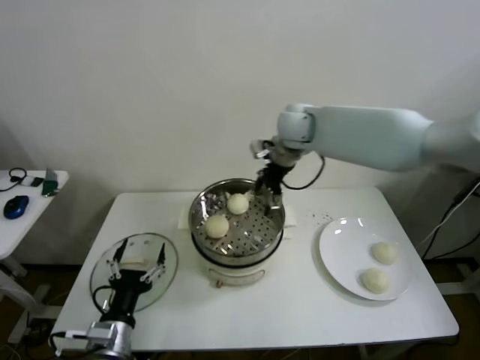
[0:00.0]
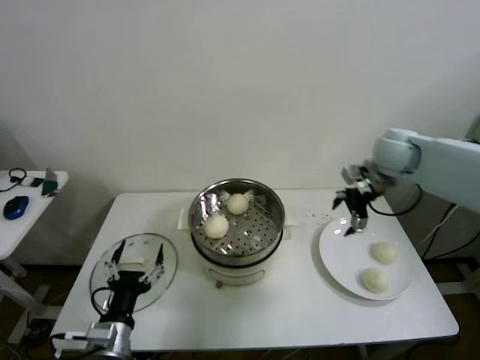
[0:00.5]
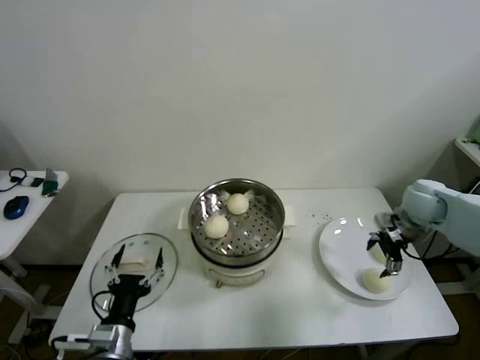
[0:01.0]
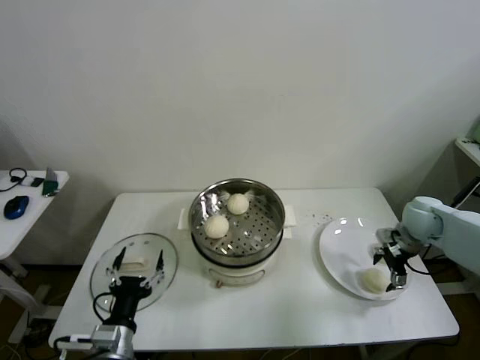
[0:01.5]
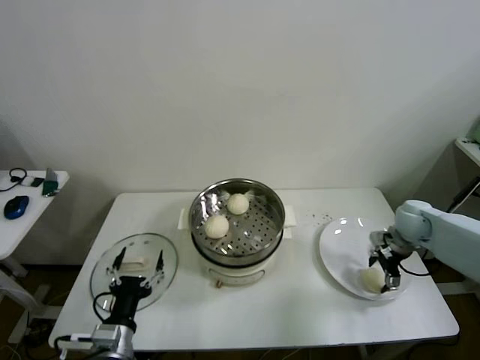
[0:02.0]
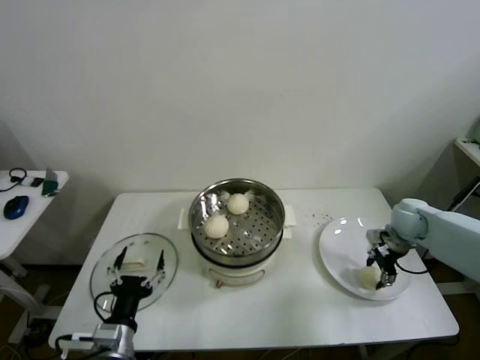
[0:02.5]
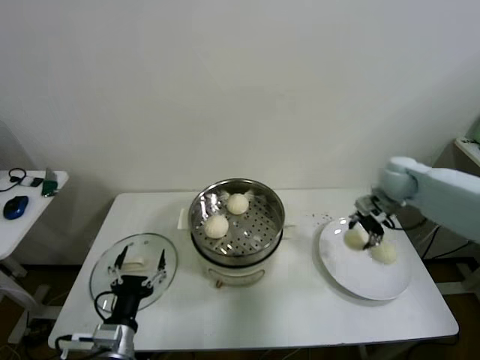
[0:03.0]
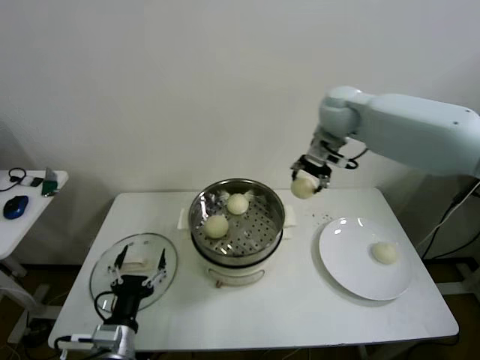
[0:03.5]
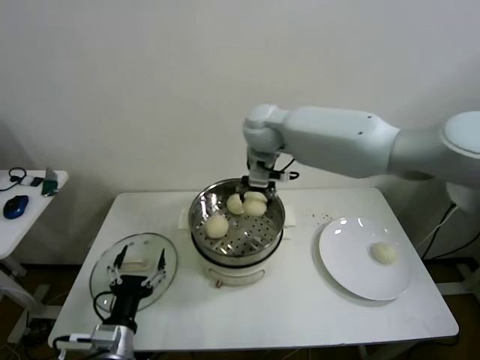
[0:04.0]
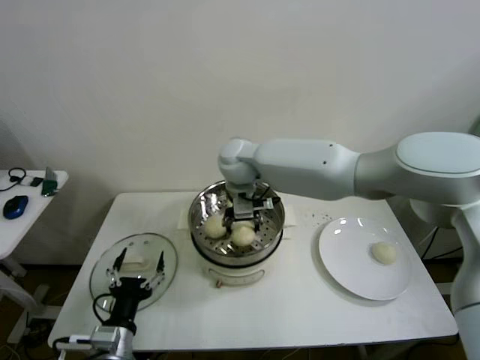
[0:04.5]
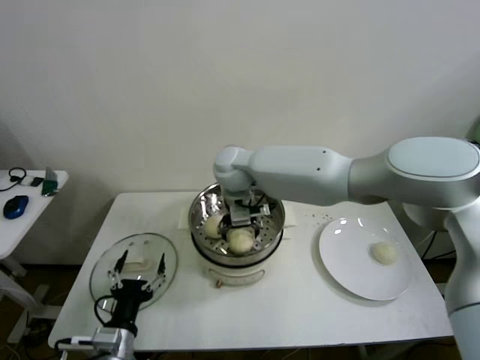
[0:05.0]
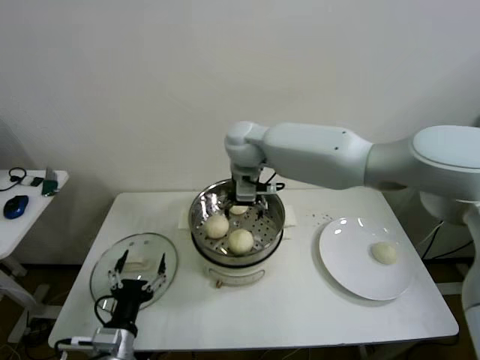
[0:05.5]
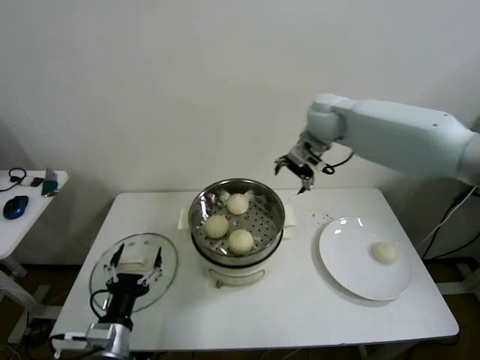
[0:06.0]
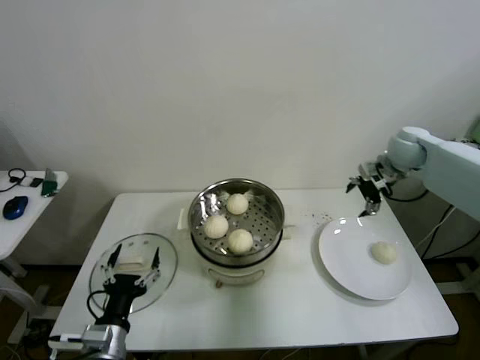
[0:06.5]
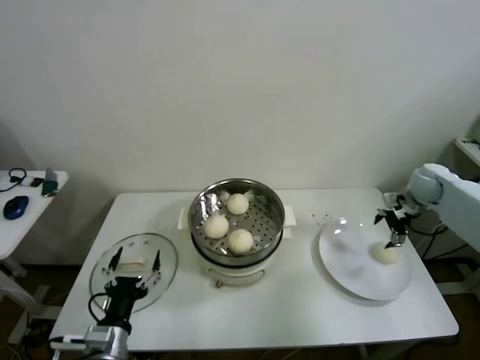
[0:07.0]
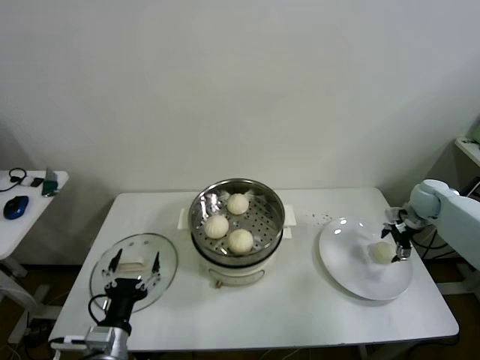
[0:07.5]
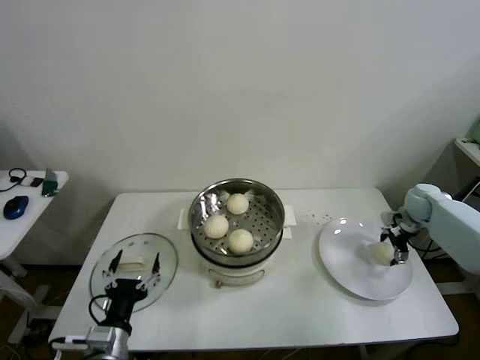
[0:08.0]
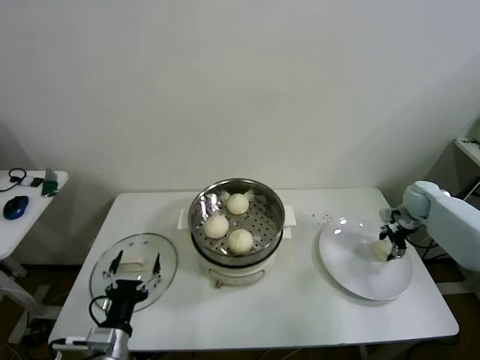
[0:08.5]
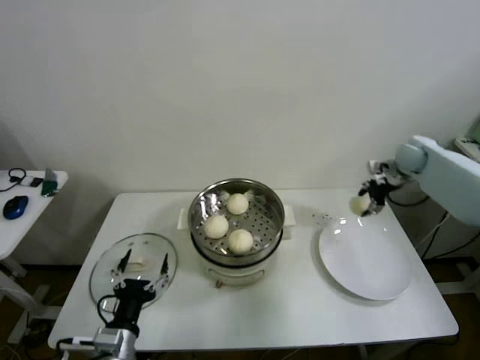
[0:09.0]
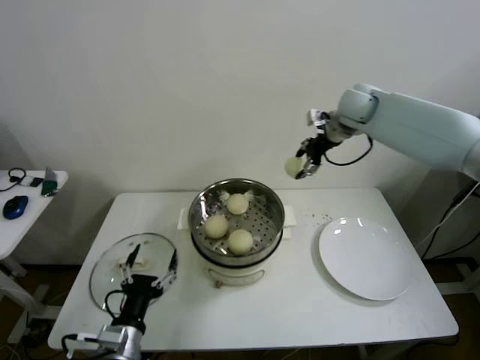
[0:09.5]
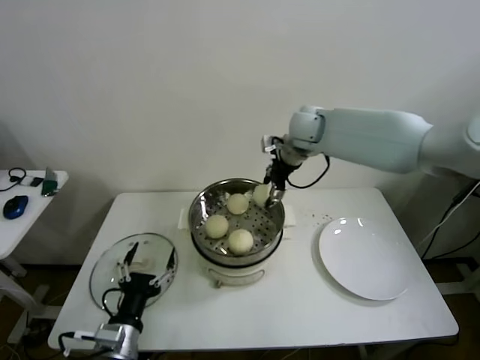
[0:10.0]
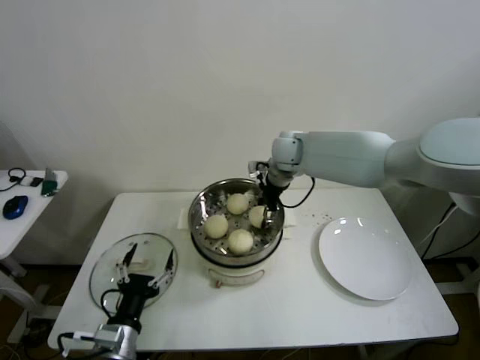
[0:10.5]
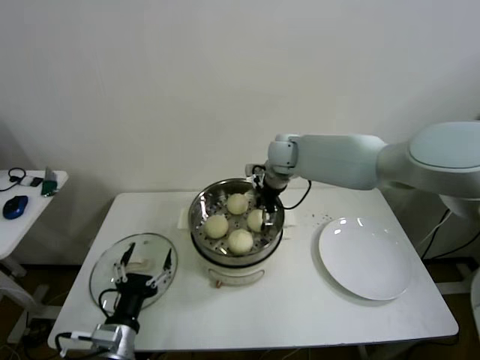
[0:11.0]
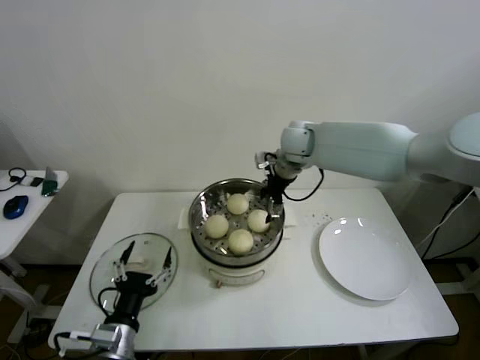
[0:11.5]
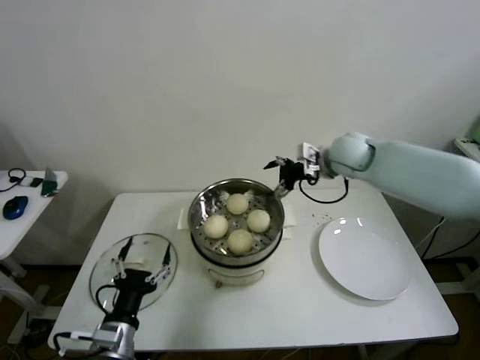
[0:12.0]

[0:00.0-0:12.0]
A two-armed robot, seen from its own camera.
Step, 0:00.0 to 0:02.0: Grasp the baozi in the plate with right gripper.
Step, 0:02.5 to 0:04.5: Place the baozi on the steamer with right gripper.
Step, 0:05.0 to 0:08.0: Grasp the baozi in the plate with right gripper.
Step, 0:08.5 to 0:10.5: Place the baozi on the steamer with right gripper.
0:00.0 to 0:02.0: The right gripper is displaced to the right and downward by some 35 cm.
0:02.0 to 0:04.0: The right gripper is displaced to the left and upward by approximately 40 cm, and closes its fingers.
0:04.0 to 0:06.0: The right gripper is displaced to the right by some 15 cm, and opens.
0:06.0 to 0:08.0: The right gripper heads to the right and downward, covering some 40 cm.
0:08.0 to 0:10.0: The right gripper heads to the left and upward, covering roughly 40 cm, and closes.
0:10.0 to 0:12.0: The right gripper goes some 10 cm to the right, and opens up.

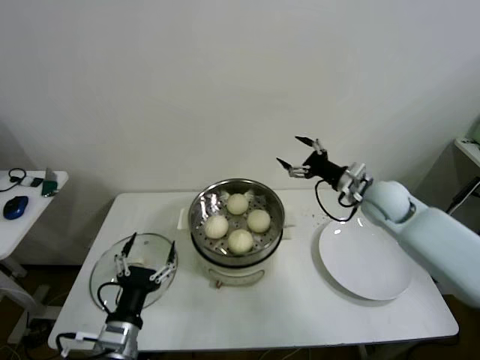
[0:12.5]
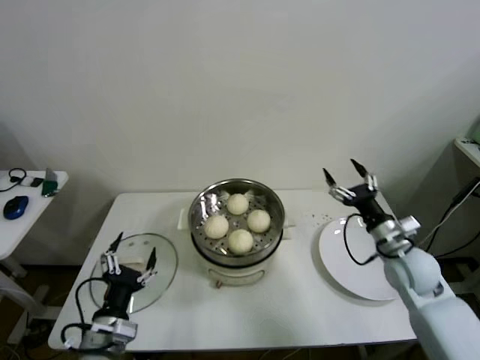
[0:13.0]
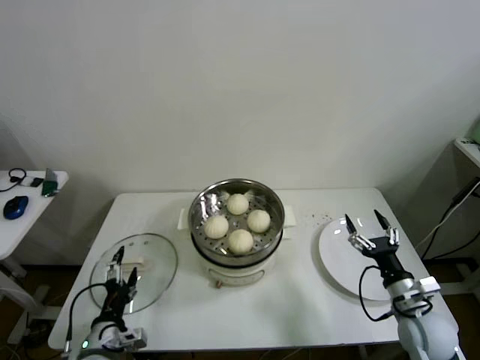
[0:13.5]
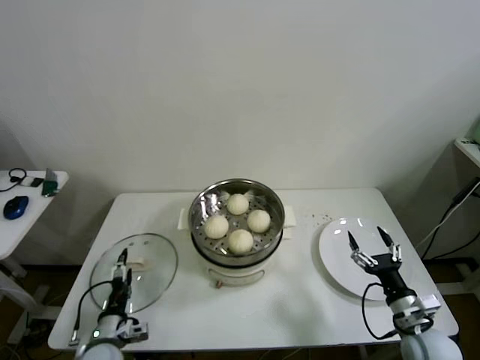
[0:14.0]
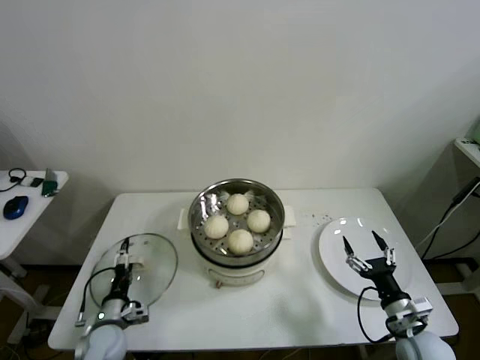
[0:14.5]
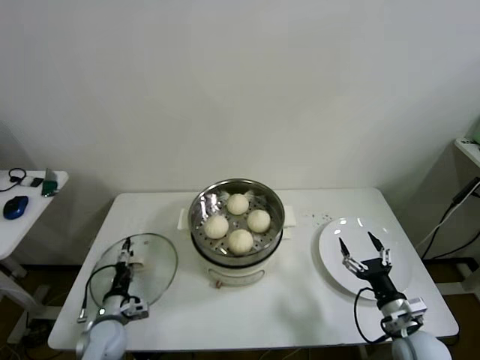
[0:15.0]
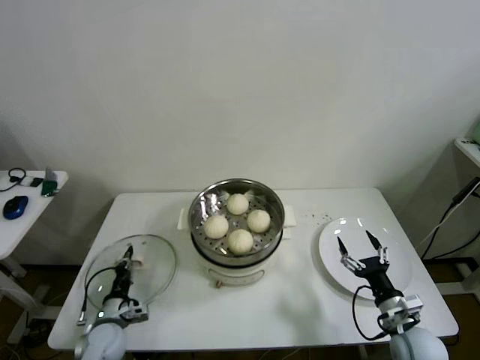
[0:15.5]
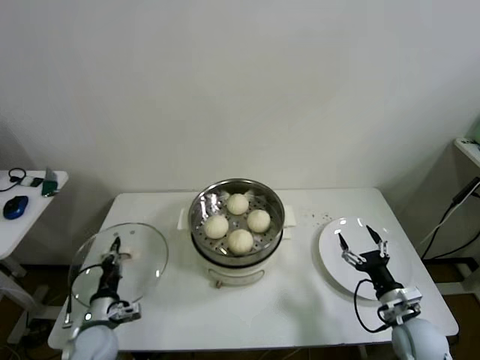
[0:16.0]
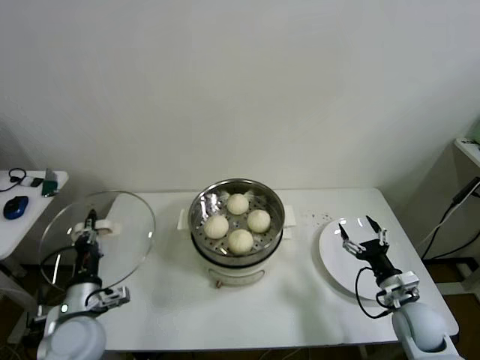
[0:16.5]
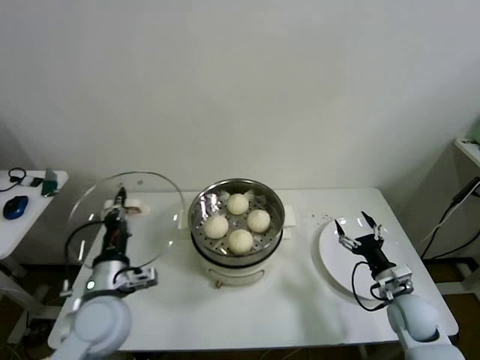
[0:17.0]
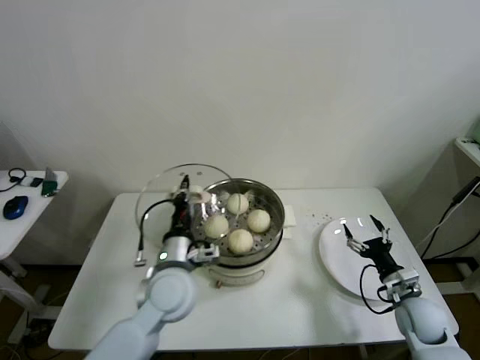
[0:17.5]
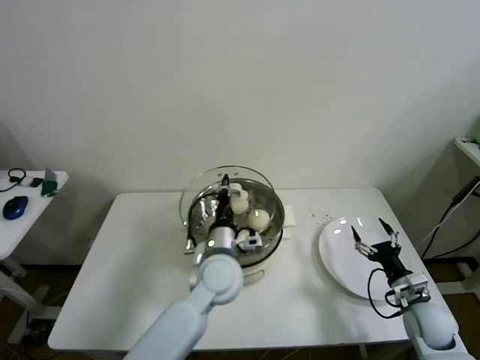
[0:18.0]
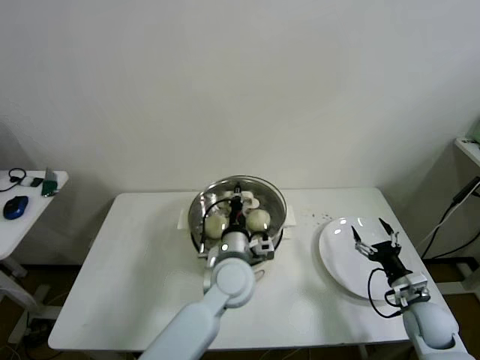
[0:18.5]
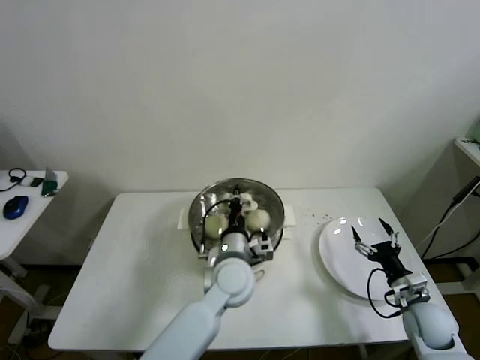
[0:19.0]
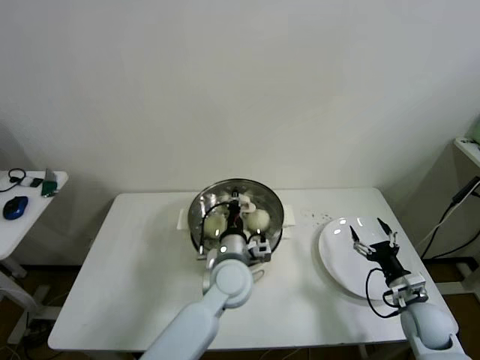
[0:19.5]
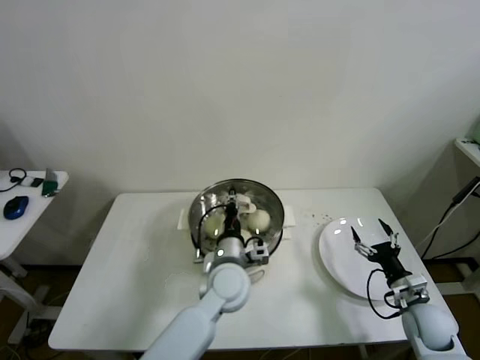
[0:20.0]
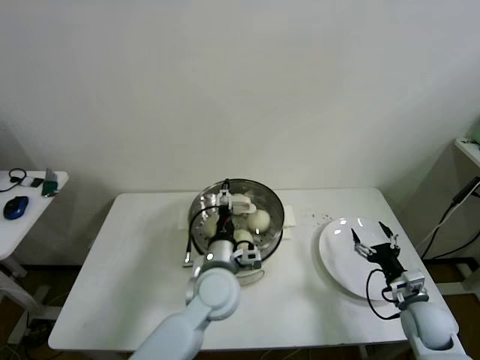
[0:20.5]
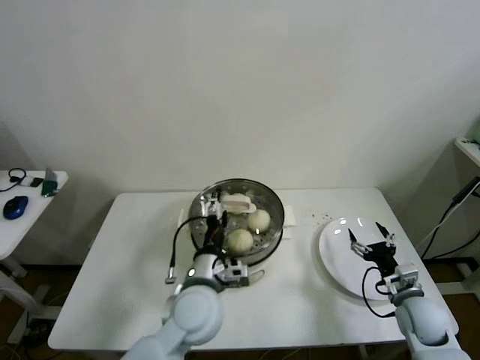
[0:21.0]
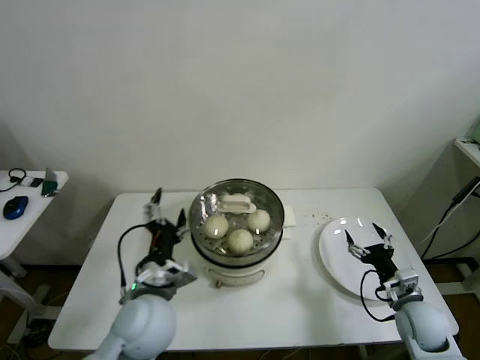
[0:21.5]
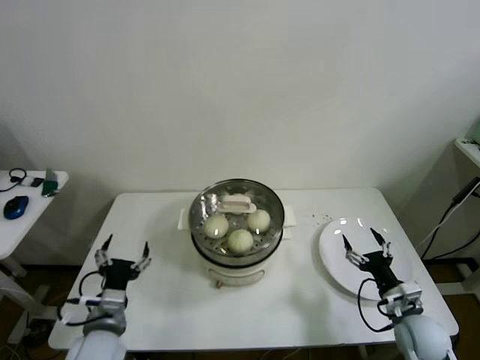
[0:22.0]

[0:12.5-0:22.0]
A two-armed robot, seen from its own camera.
Step, 0:12.5 to 0:15.5: Grasp the pot lid with left gripper.
Step, 0:16.0 to 0:19.5: Place the pot lid on the steamer with left gripper.
0:12.5 to 0:14.5: The left gripper shifts about 20 cm downward, forward and to the left, while the right gripper is displaced backward and downward by about 30 cm.
0:14.5 to 0:16.5: The left gripper moves upward, approximately 15 cm, and closes; the right gripper heads forward, covering approximately 5 cm.
0:16.5 to 0:18.0: The left gripper shifts some 30 cm to the right and forward.
0:18.0 to 0:20.0: The grippers stay close to where they were, moving slightly.
0:20.0 to 0:22.0: The left gripper heads to the left and backward, covering some 25 cm, and opens up.
